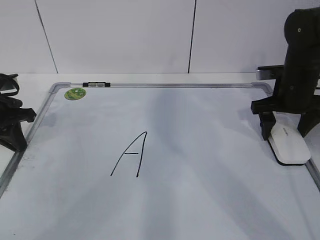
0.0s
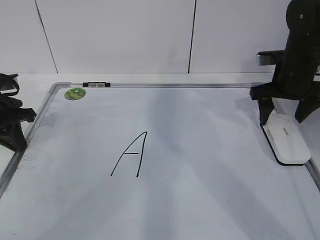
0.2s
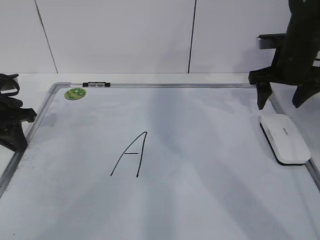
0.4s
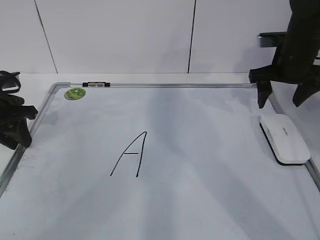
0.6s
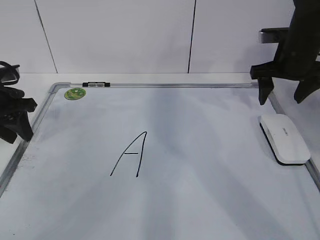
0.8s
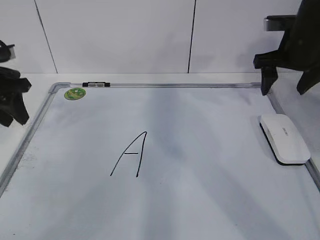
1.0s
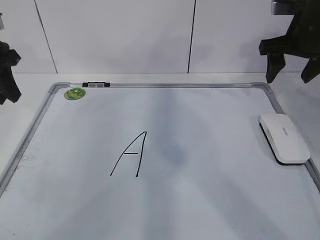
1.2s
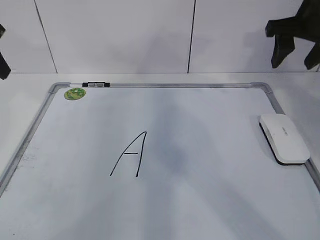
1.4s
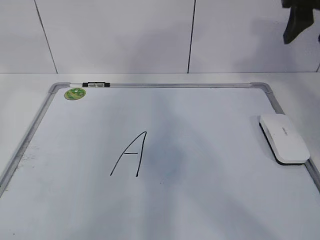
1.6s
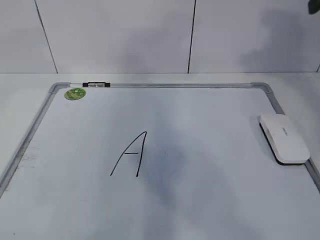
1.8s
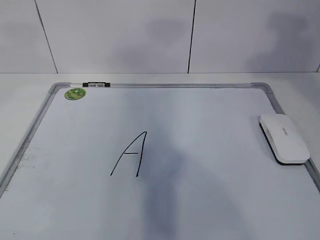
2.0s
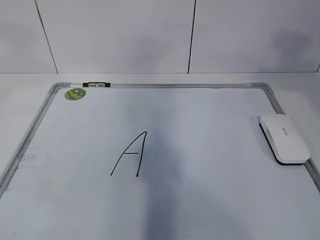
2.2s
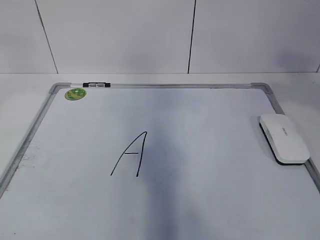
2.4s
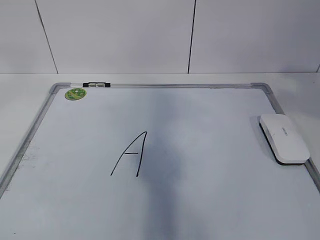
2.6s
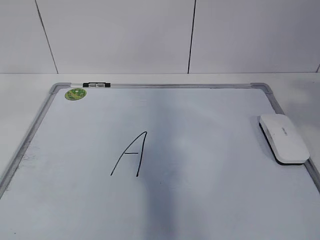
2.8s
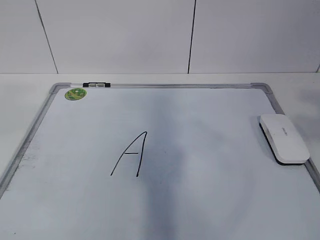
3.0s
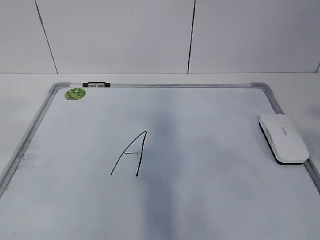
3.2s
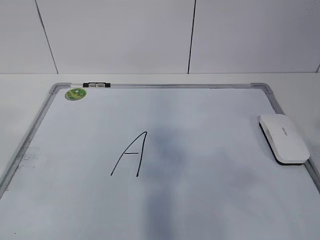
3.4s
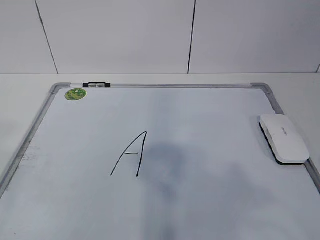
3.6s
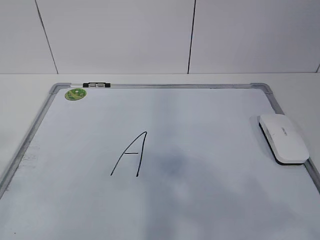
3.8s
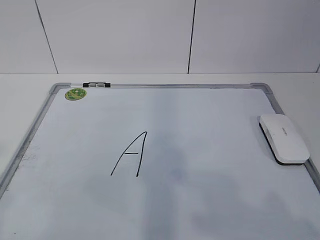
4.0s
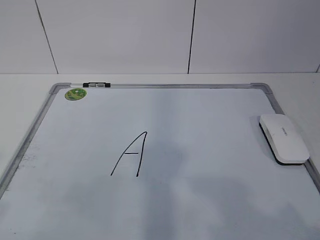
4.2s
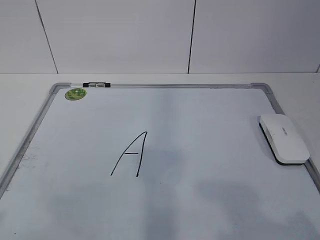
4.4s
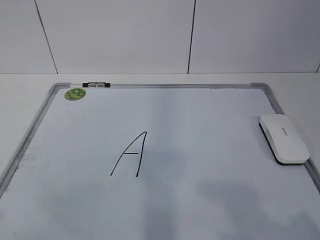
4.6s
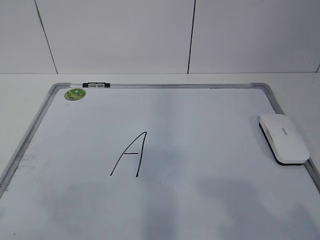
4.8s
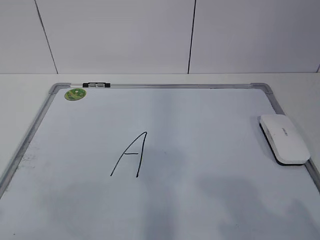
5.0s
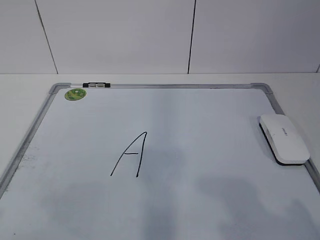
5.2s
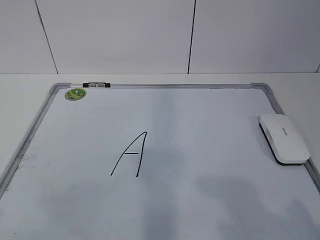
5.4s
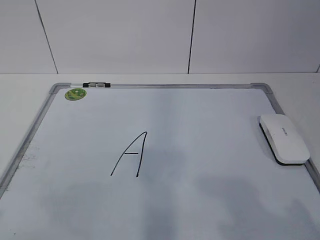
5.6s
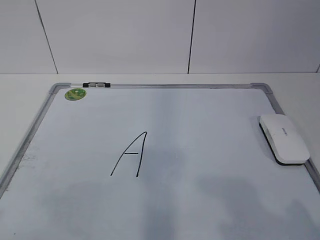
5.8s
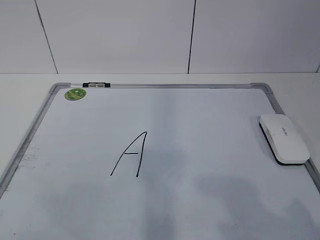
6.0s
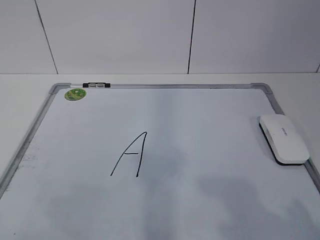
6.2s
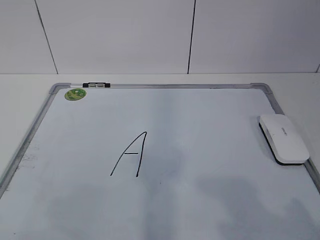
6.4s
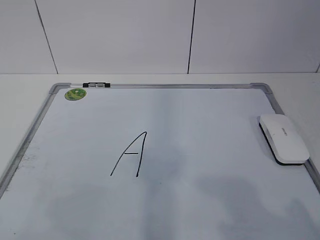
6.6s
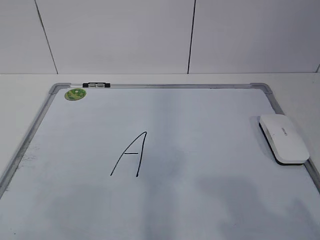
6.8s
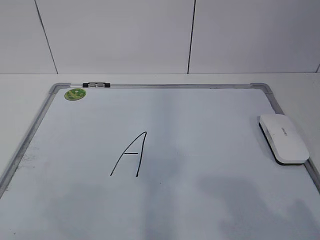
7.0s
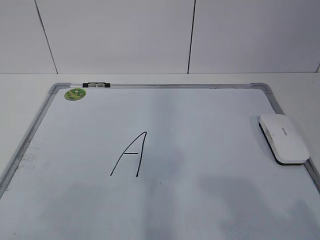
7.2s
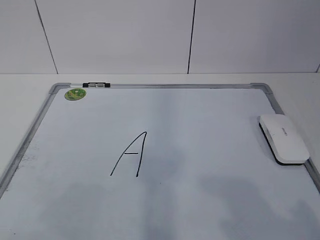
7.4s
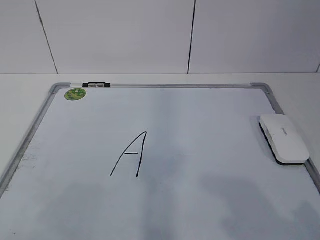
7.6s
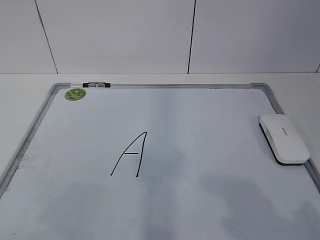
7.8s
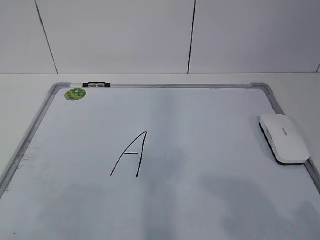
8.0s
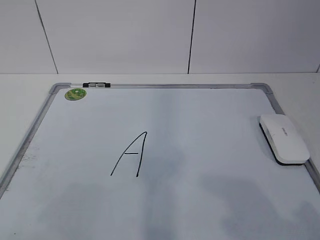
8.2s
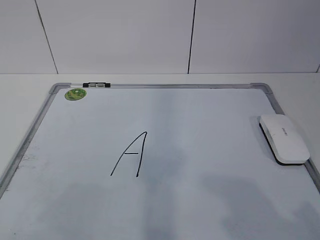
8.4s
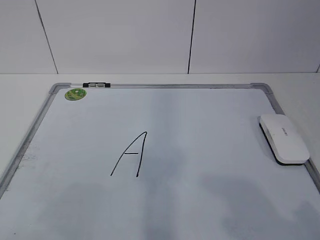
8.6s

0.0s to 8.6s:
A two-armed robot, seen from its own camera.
Task of the whole recording: pick up the eraser on the blackboard and erase the letter "a".
0.0s to 1.4s: The two grippers go some 15 cm upward. The right gripper closes up. The left gripper opens its fingers.
1.4s to 2.8s: Both grippers move backward and upward, approximately 35 cm.
2.8s to 4.4s: The right gripper goes roughly 20 cm downward and backward. Meanwhile the left gripper is displaced downward by approximately 20 cm.
4.4s to 5.8s: Neither gripper changes place.
7.2s to 8.6s: The two grippers keep their place.

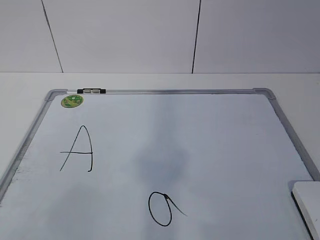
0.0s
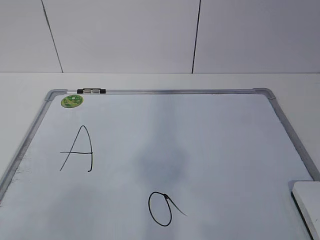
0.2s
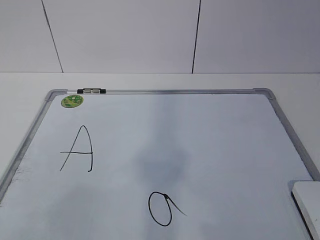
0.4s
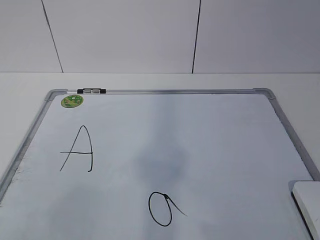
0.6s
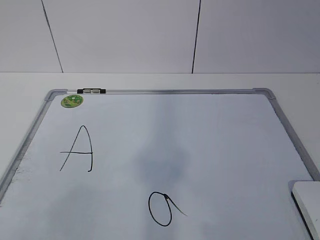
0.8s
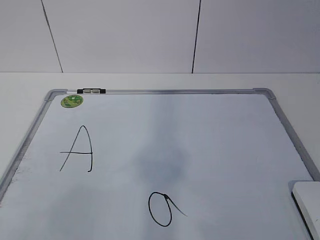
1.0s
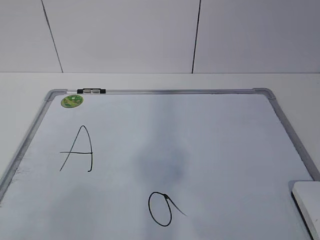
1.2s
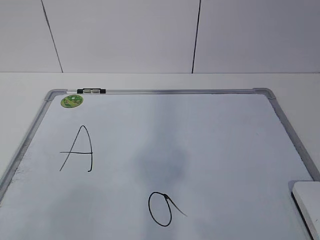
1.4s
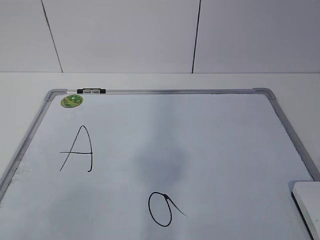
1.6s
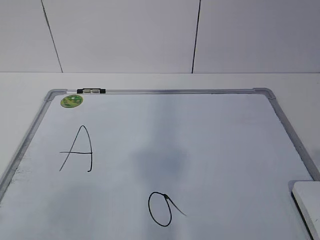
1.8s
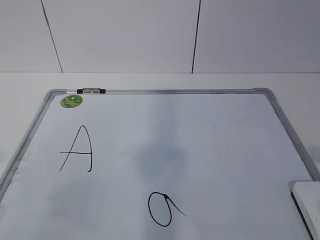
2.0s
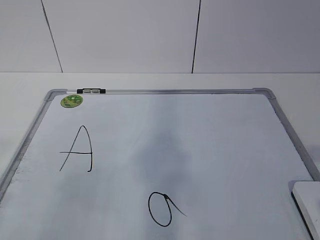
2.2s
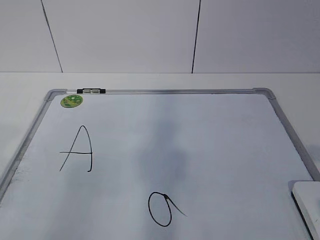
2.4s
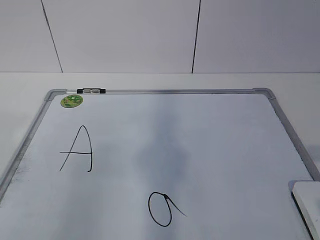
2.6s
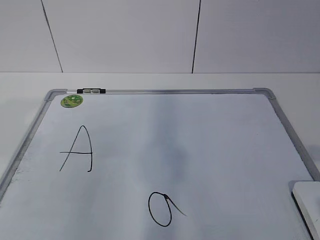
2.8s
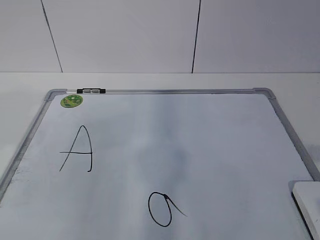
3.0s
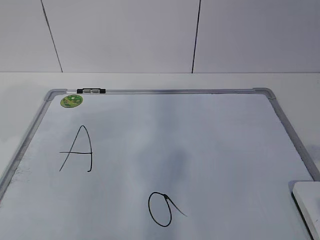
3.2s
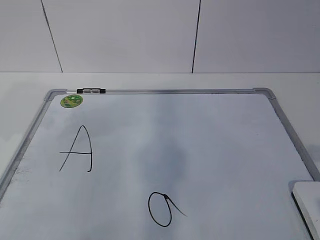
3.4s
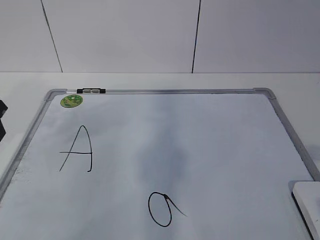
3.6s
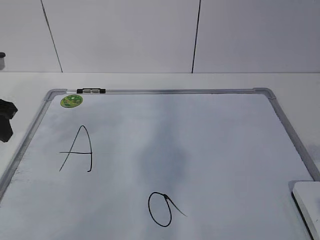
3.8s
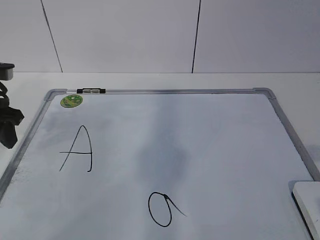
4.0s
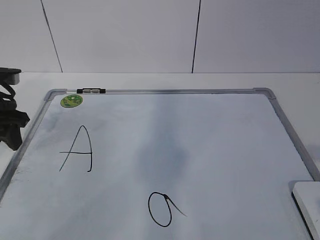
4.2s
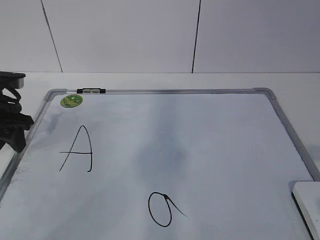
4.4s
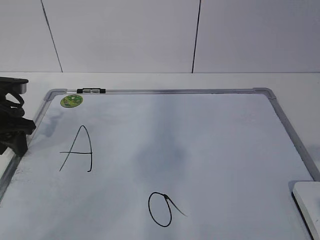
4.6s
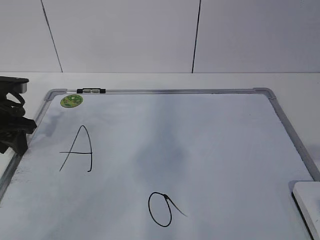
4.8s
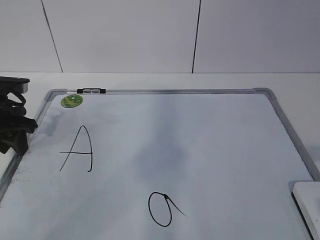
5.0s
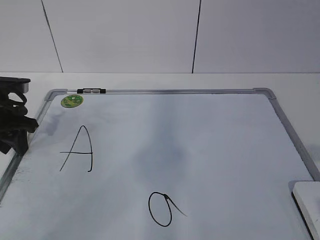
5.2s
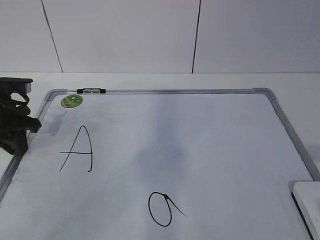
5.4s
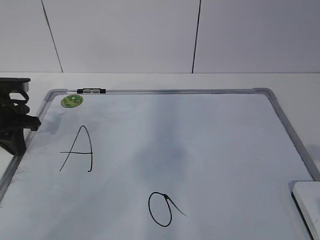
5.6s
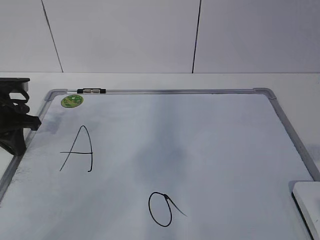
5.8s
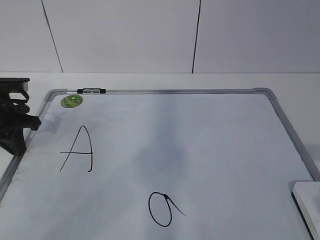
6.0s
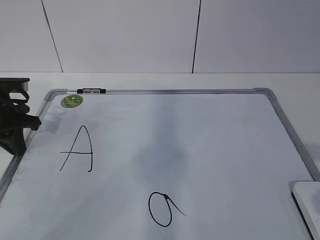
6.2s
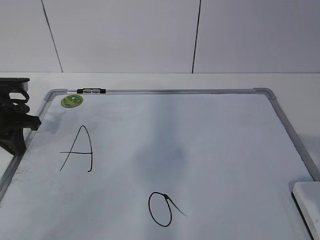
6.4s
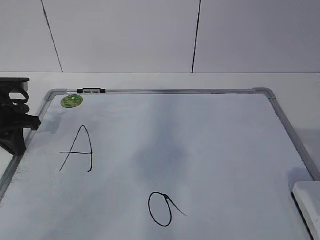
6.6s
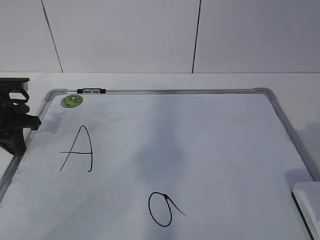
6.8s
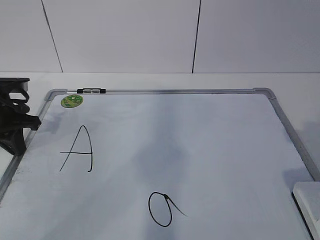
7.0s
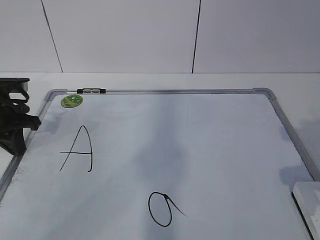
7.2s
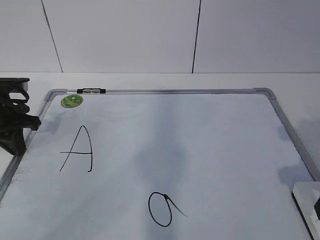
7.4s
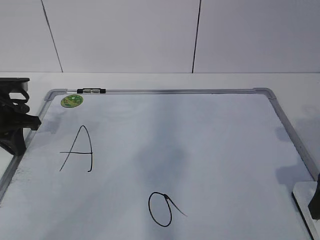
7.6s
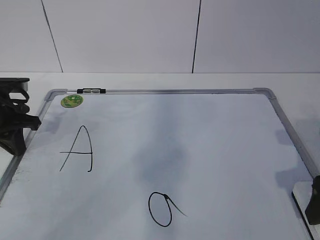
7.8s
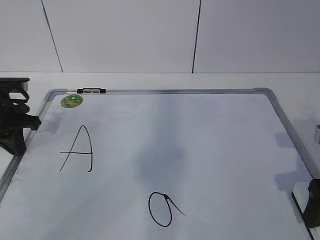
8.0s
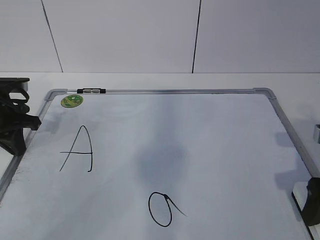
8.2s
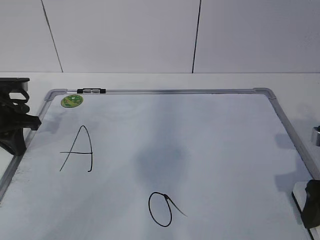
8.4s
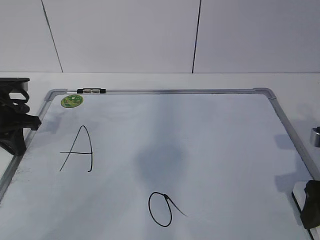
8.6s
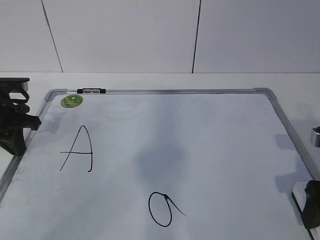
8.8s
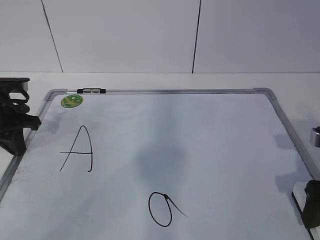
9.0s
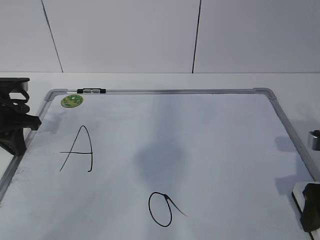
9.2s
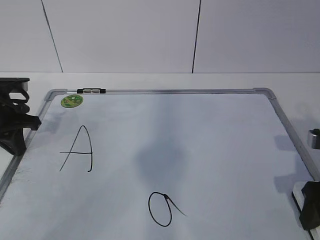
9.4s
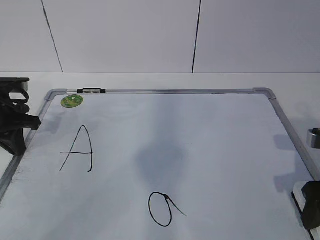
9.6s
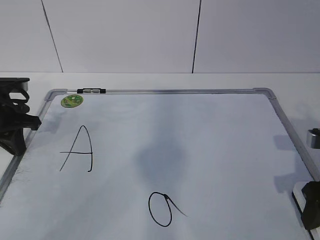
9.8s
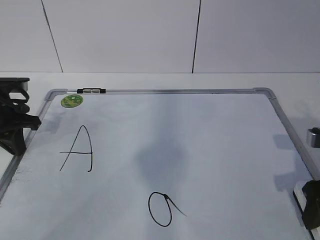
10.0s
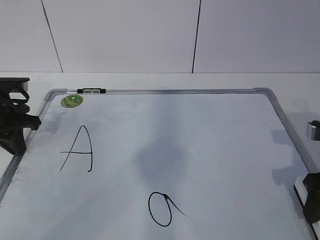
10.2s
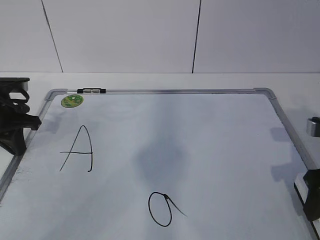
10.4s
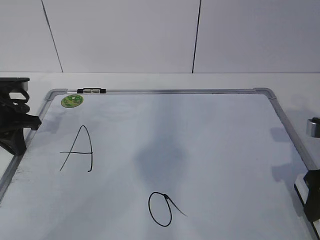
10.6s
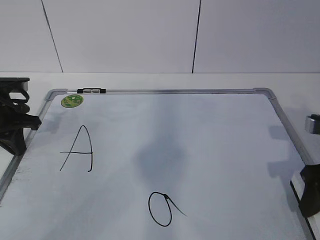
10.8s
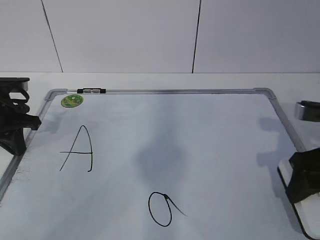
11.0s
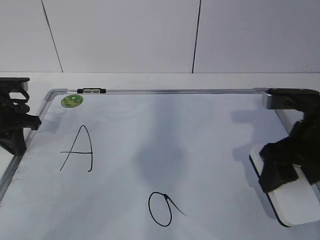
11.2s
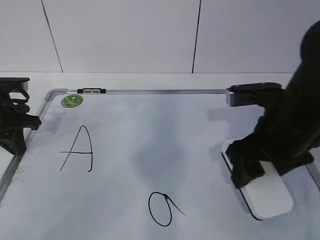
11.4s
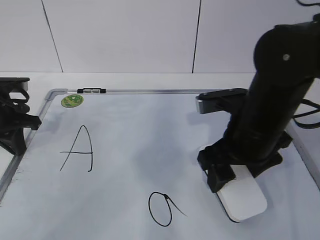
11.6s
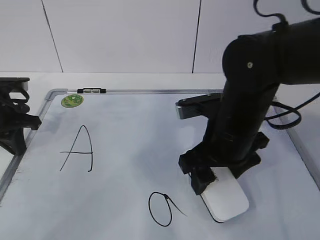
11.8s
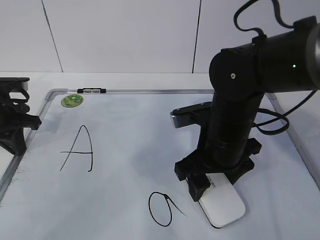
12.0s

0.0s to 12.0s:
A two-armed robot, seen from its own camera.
Task of the whole recording: pick up the eraser on the blackboard and erase the letter "a".
Step, 0.0s to 4.8s: Hold the drawing board steady with your left hand.
3.0s to 4.4s: The left gripper goes roughly 20 cm forward and downward.
4.4s to 6.0s: The left gripper closes.
6.0s to 7.6s: The right gripper is displaced forward and downward by approximately 15 cm.
7.6s to 9.0s: The grippers stay close to where they were, moving slightly.
9.0s to 10.4s: The right gripper closes its fingers.
10.4s to 12.0s: The right gripper moves to the left, approximately 20 cm.

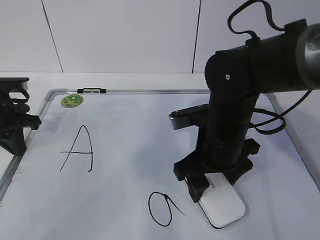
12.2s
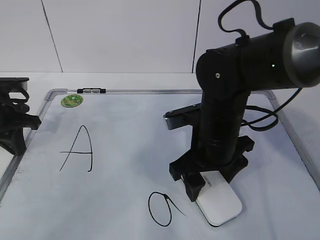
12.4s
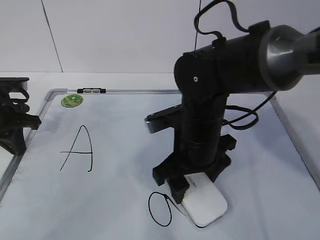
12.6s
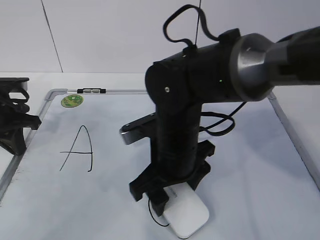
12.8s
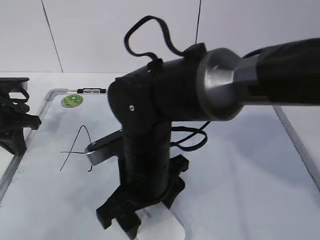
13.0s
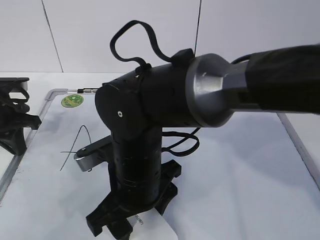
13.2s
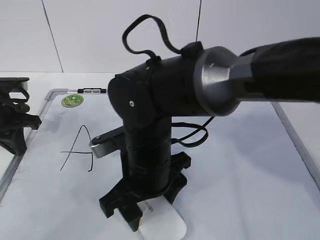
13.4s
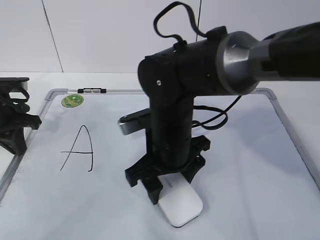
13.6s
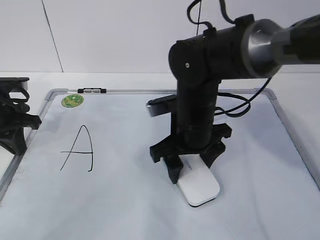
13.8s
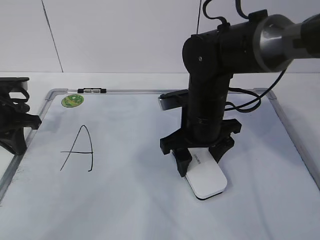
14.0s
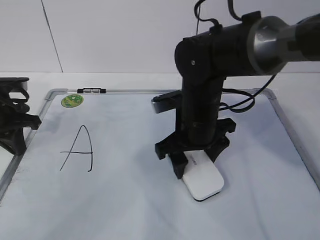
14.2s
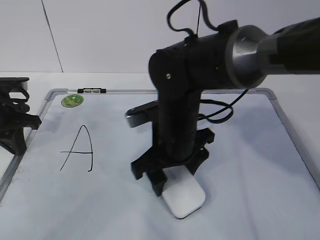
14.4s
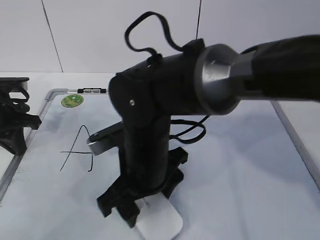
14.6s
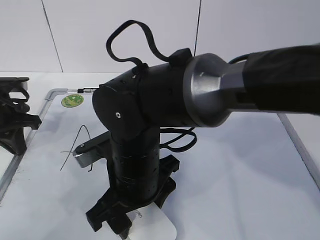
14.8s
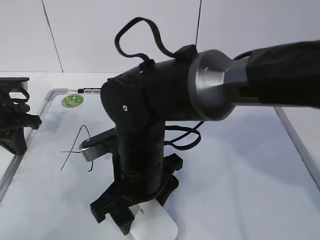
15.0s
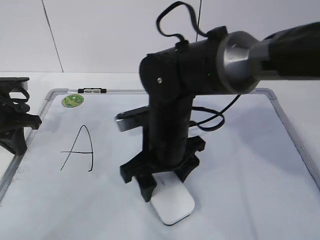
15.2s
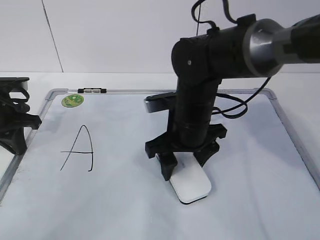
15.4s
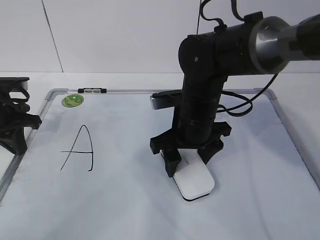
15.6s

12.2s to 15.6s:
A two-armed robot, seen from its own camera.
Task of the whole recording: pick up the eraser on the blackboard and erase the letter "a".
12.2s to 13.8s: The right gripper moves some 10 cm to the left and comes back.
13.8s to 15.6s: The right gripper reaches about 10 cm to the left, then returns.
